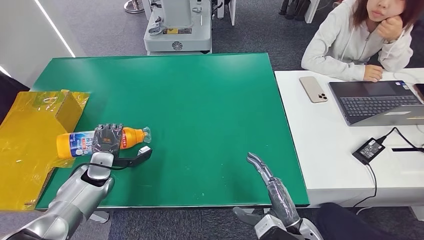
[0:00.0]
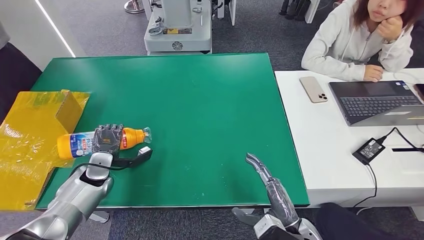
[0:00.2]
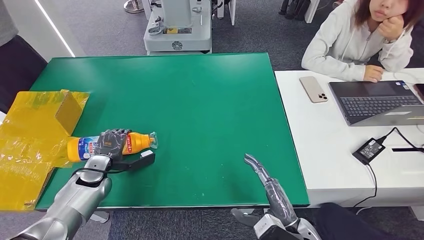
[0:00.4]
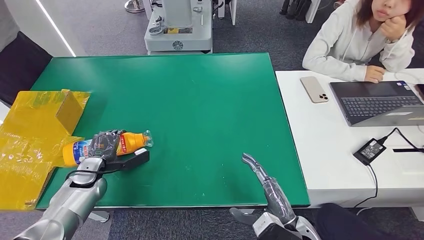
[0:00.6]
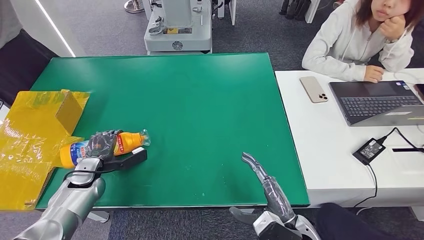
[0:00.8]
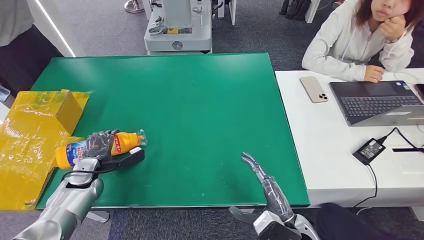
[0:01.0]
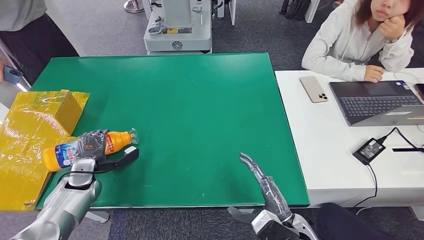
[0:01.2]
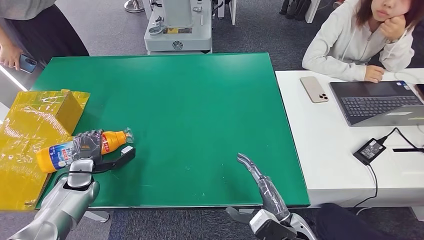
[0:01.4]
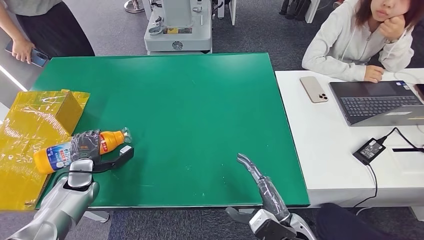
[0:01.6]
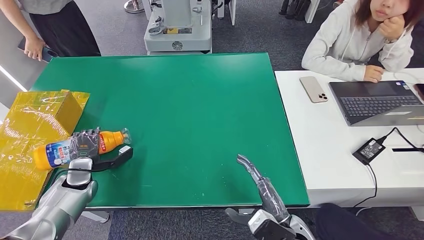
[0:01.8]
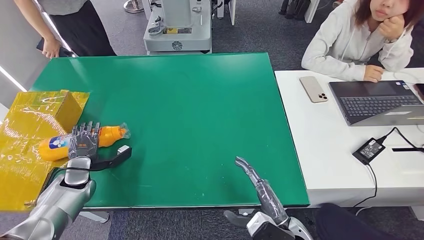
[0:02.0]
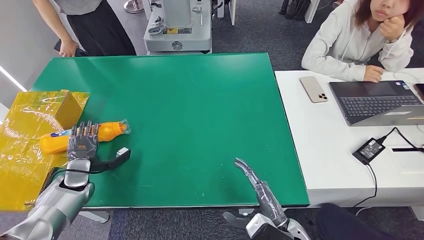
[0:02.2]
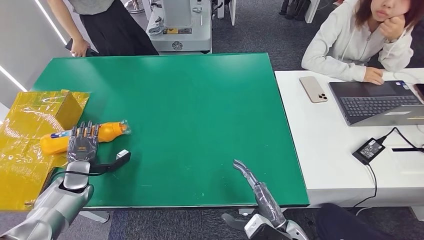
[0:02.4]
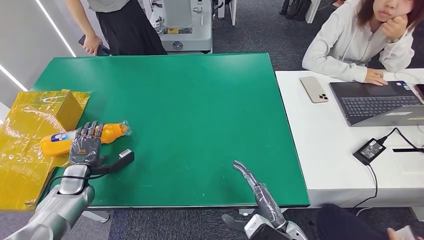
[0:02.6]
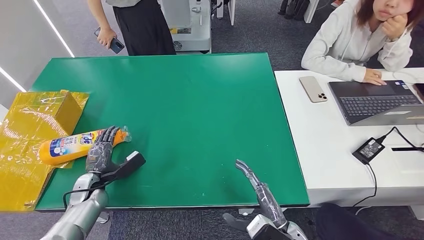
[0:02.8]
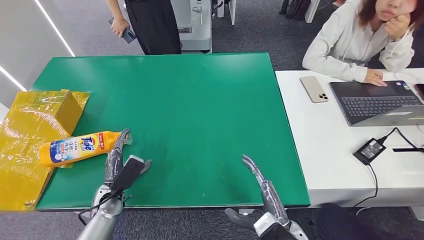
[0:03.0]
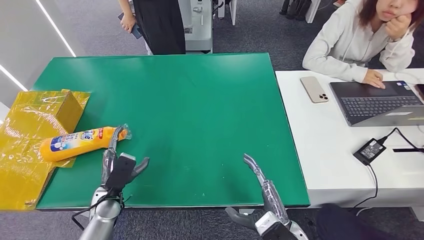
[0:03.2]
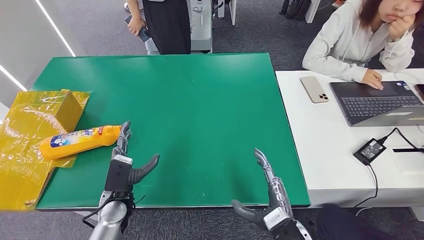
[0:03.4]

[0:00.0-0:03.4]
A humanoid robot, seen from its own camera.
Step, 0:00.0 to 0:03.4: Turn the bottle to the front side.
0:00.0 to 0:01.6: The left hand changes place by roughly 5 cm.
